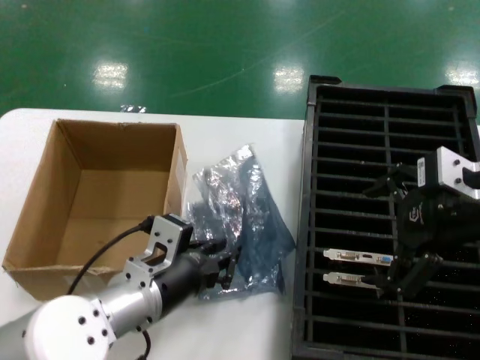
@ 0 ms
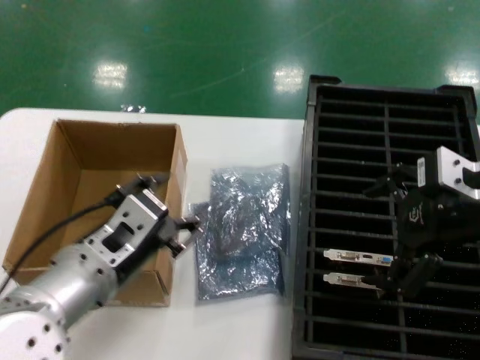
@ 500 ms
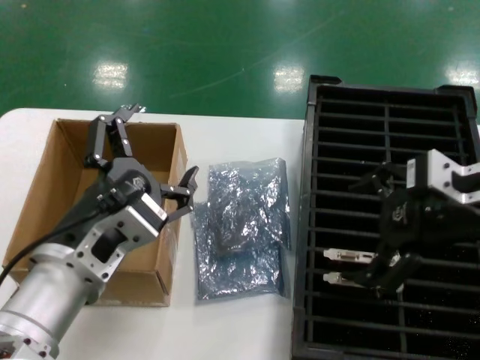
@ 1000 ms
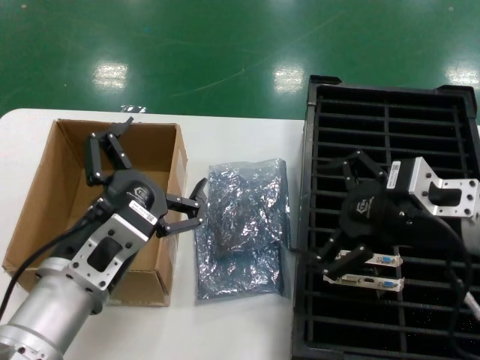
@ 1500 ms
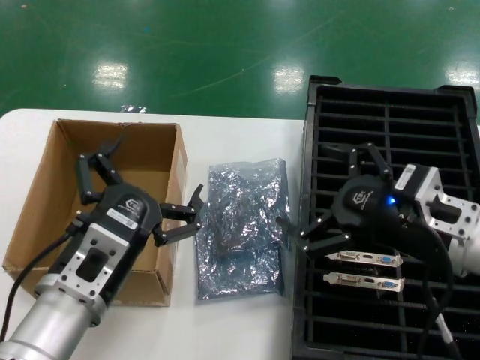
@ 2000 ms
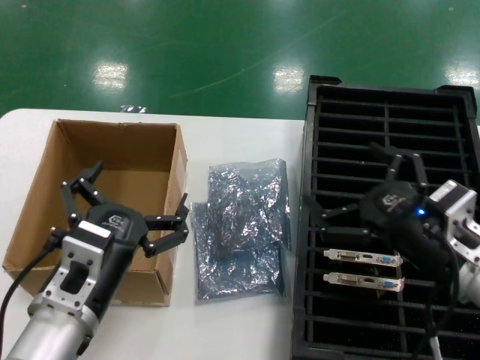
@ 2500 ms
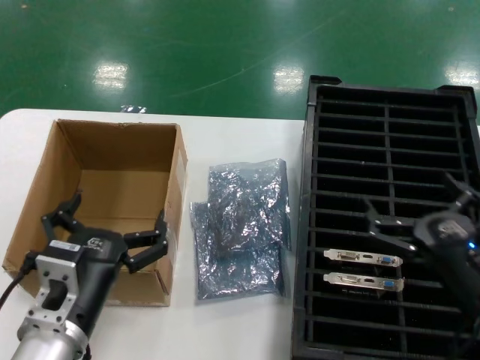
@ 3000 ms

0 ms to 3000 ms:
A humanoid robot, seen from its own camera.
Task of the whole recording: take out graphics card from box remove packaging put into black container.
0 ms to 1500 ms: The left hand shifts some 5 cm backward; the right hand goes about 5 cm downward.
1500 ms to 3000 ms: The left hand is displaced downward by some 10 cm; the right hand heads downward and backward, covering about 15 cm.

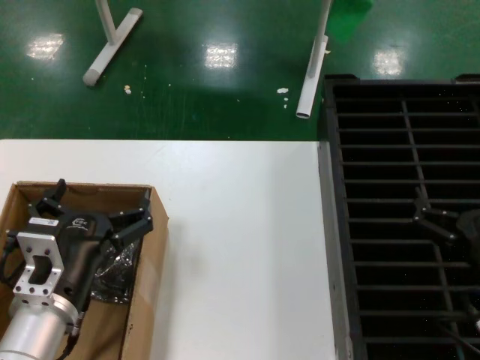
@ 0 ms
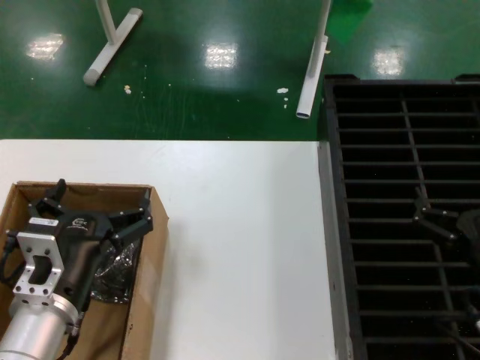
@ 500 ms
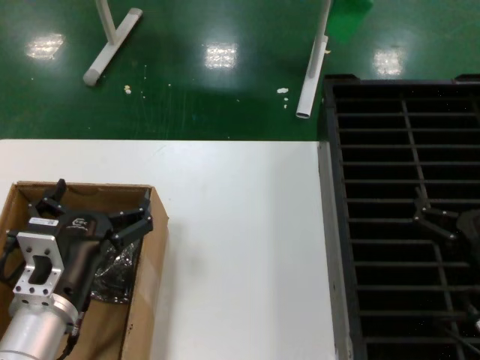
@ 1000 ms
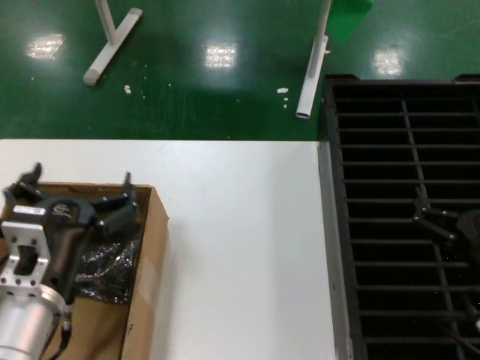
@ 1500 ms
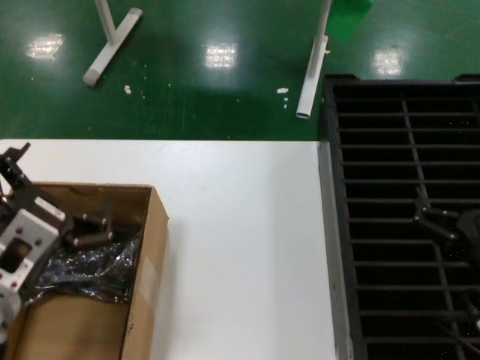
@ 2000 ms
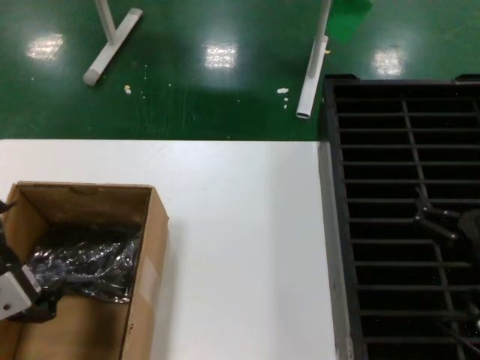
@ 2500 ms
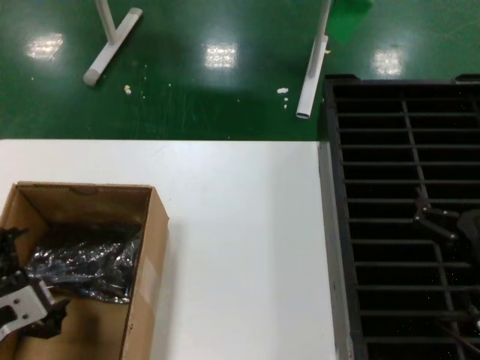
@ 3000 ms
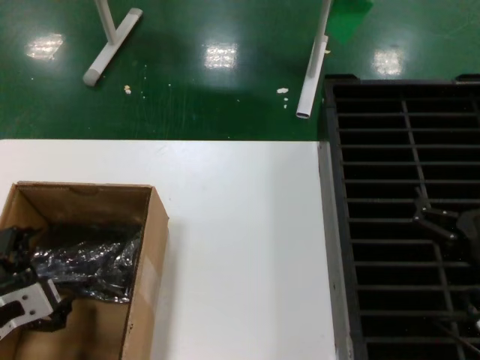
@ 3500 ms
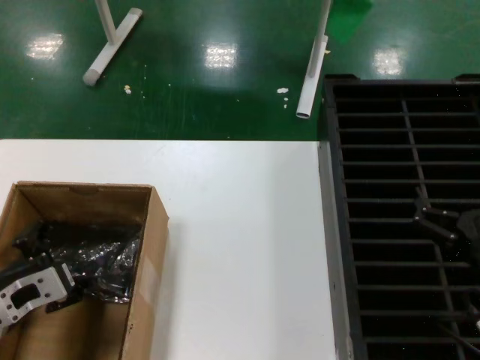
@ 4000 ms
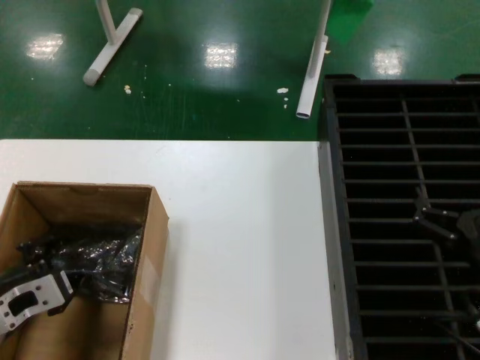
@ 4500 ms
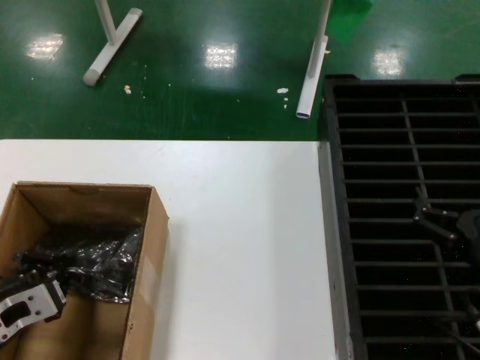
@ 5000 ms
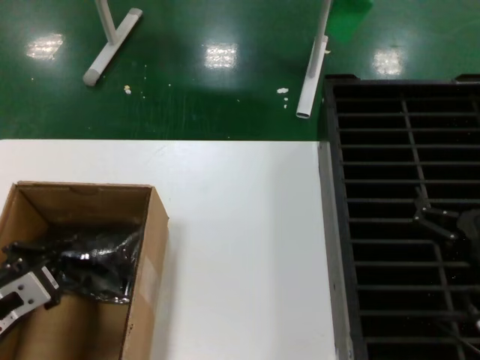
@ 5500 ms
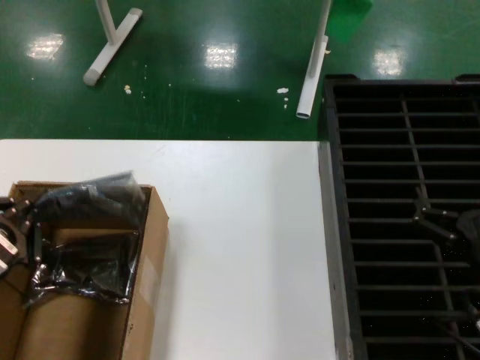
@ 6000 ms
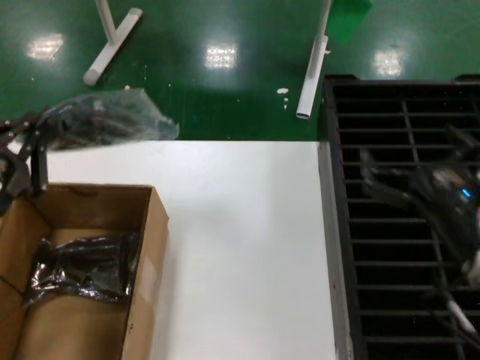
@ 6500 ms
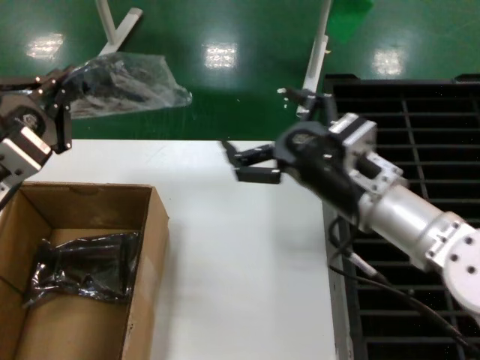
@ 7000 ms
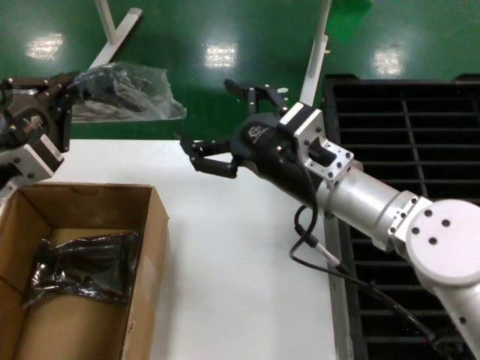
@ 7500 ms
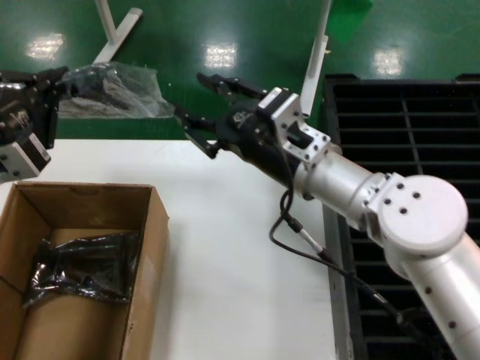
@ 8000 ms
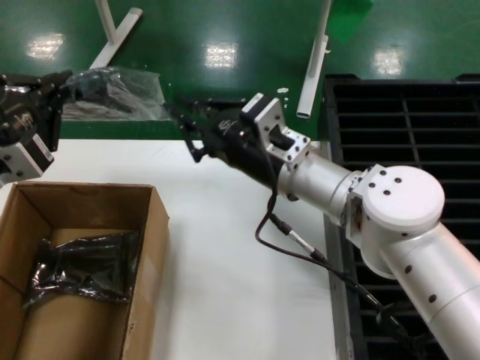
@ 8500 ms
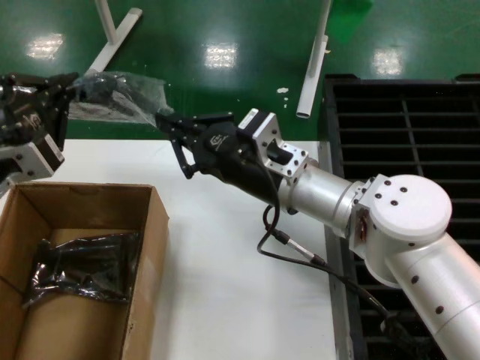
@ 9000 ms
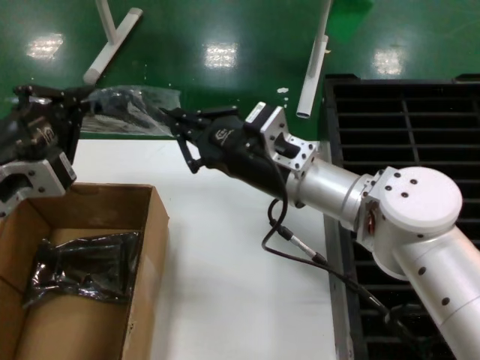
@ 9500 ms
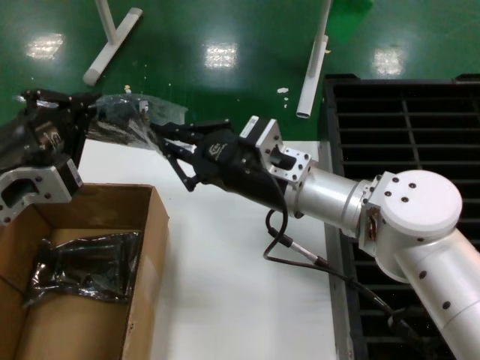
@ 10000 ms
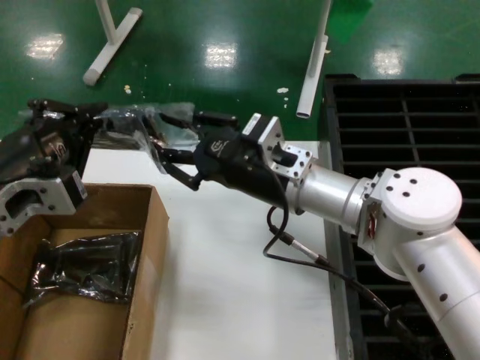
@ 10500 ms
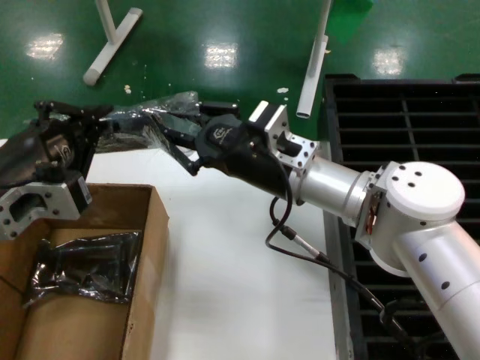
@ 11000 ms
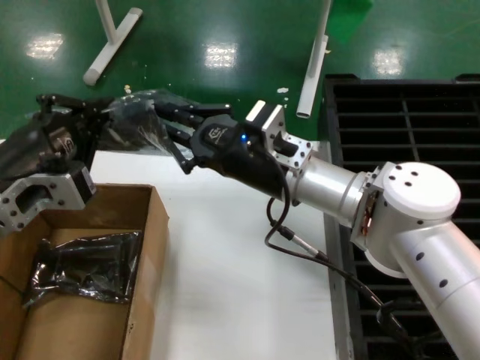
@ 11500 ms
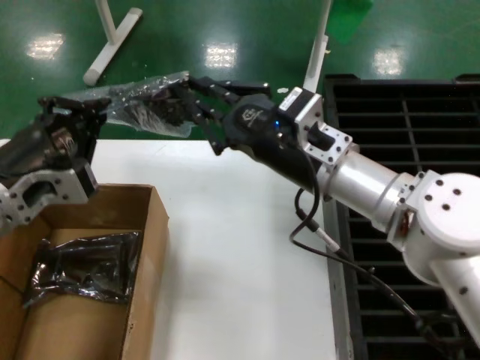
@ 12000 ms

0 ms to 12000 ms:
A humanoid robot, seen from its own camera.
Task of the whole recording: take out graphics card from box remove packaging put into black container.
Step, 0 ms to 5000 ms: Grasp the bag.
Step, 5500 ms to 7000 ms: Lift the bag.
0 ms to 2000 ms: The left hand travels upward by some 10 cm.
2000 ms to 4000 ms: The left hand heads downward, to the left and forward, covering approximately 10 cm.
4000 ms to 6000 ms: The left hand heads backward and upward, covering approximately 10 cm.
6000 ms to 8000 ms: The right hand shifts some 25 cm to the left, forward and upward. Meanwhile the left hand is displaced forward and upward by roughly 10 cm.

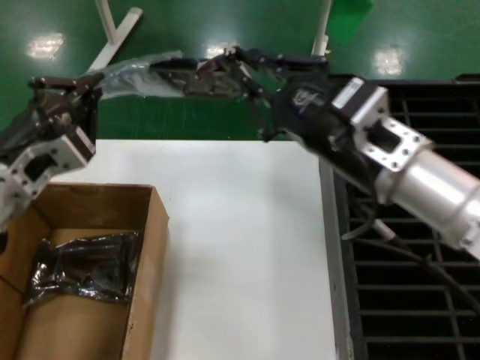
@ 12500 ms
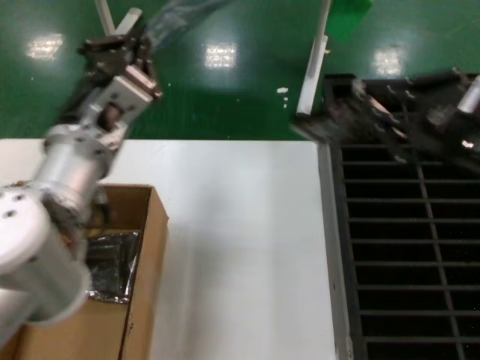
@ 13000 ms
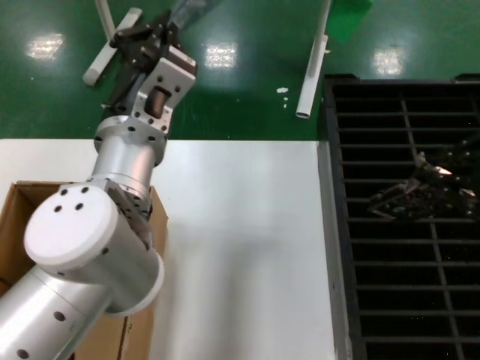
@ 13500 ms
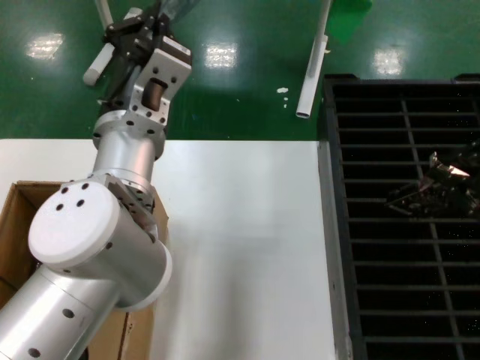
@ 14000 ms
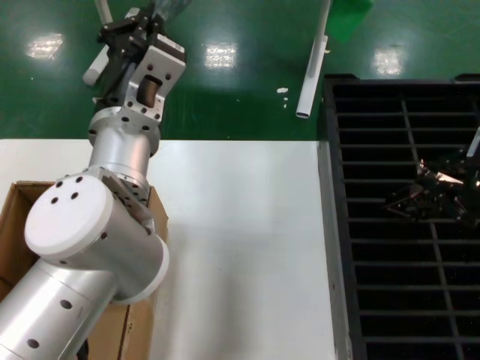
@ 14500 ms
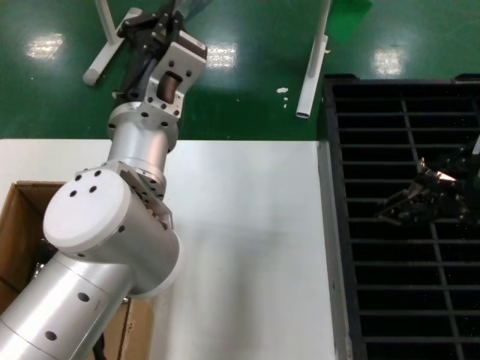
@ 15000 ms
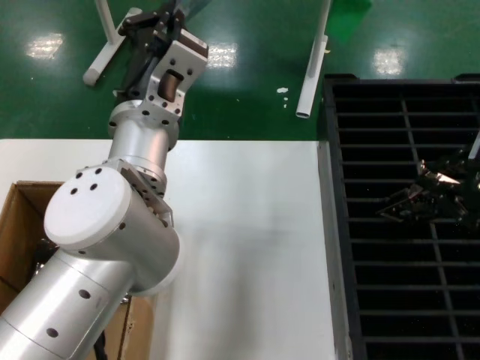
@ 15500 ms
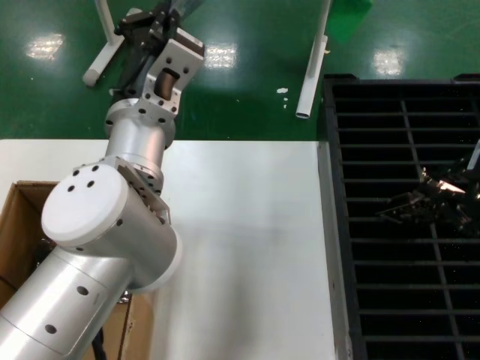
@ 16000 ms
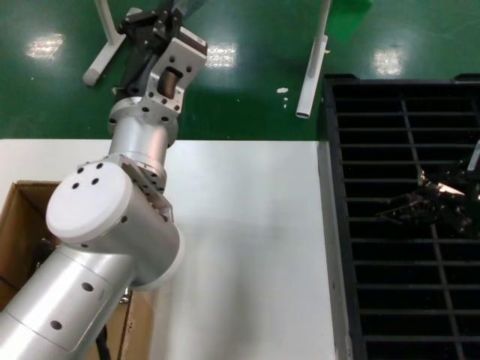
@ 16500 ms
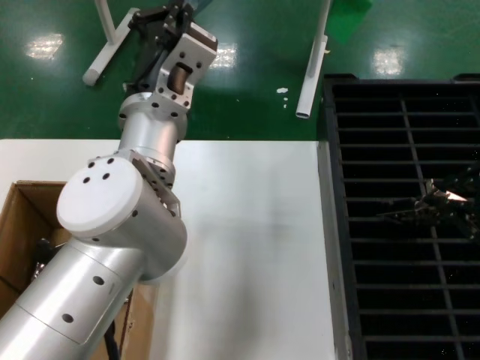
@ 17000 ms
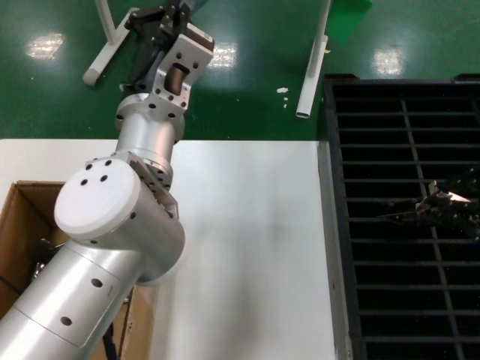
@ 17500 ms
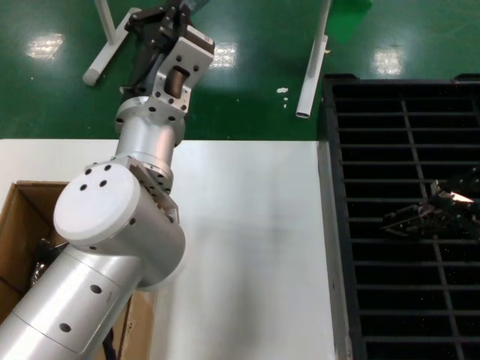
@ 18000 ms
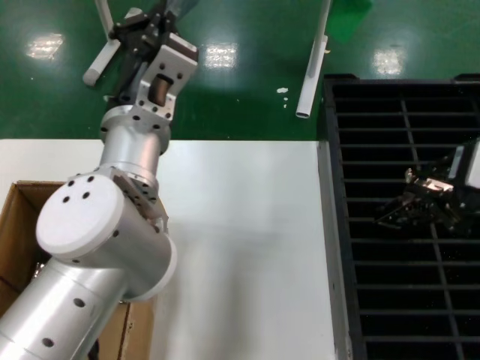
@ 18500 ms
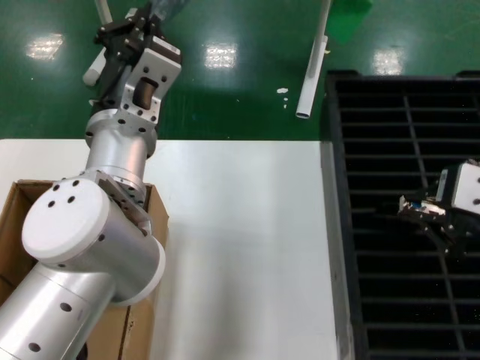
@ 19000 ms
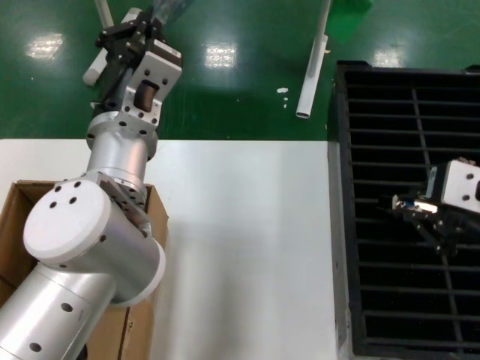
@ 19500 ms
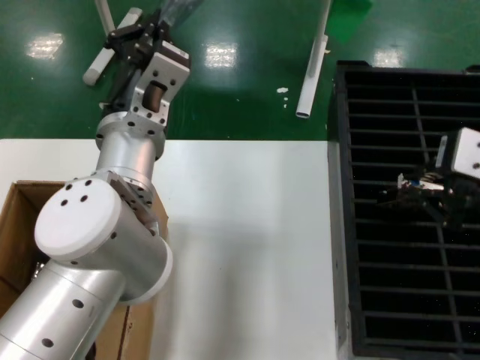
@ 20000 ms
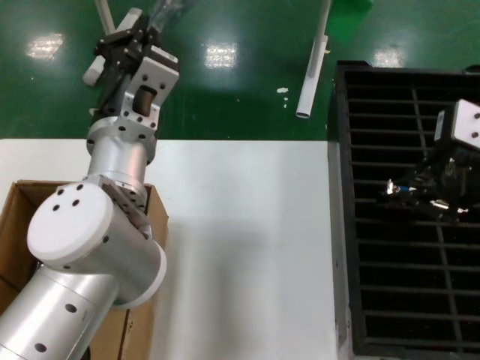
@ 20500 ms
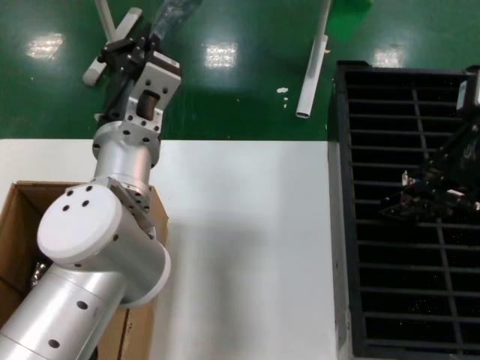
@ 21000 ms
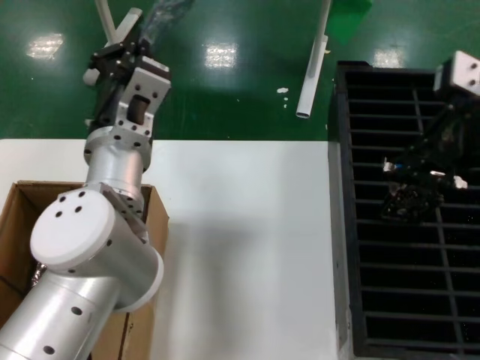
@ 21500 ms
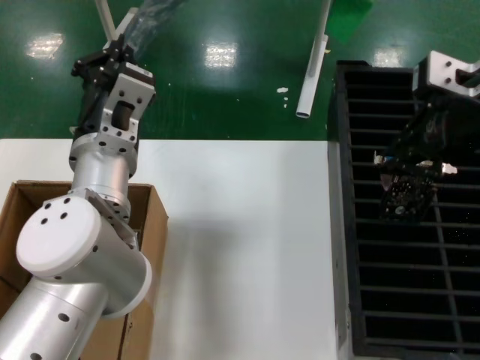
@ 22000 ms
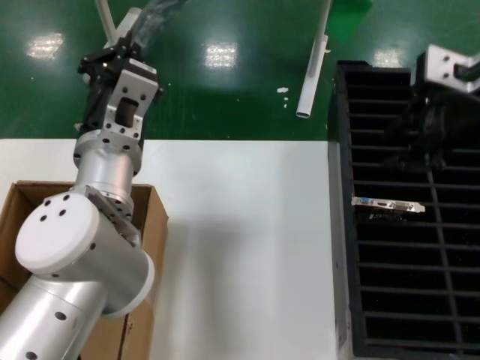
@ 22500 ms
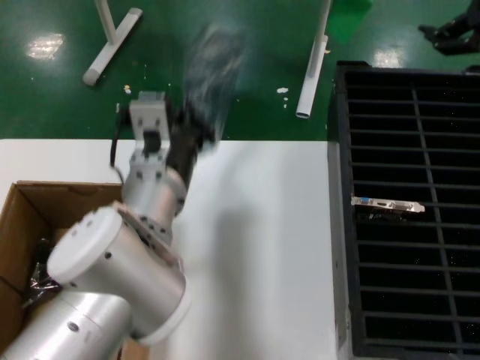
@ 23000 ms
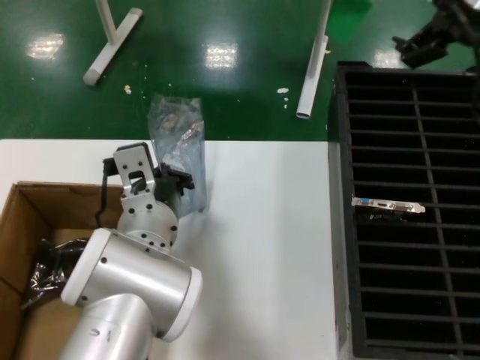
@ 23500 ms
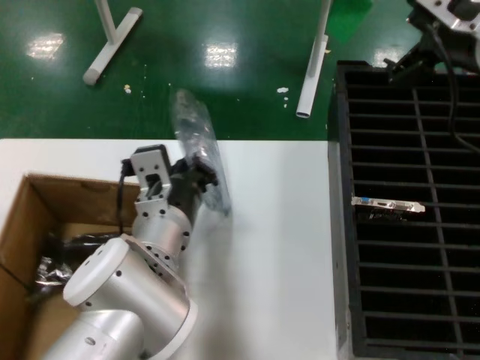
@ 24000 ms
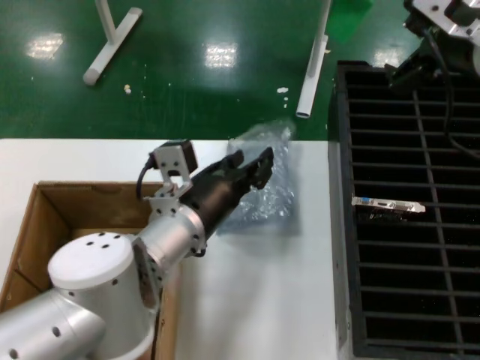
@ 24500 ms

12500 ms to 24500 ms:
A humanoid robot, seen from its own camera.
Task of the whole recording: take out graphics card from box remove packaging put into black container.
Step, 13000 ms to 22500 ms: Place the hard disk in the hard disk enclosure.
12500 ms to 14500 ms: The left hand goes about 15 cm to the right; the right hand is displaced to the right, upward and backward by roughly 15 cm.
14500 ms to 18500 ms: The hands make only small movements.
18500 ms to 20500 ms: The right hand is displaced forward by about 5 cm.
20500 ms to 22500 ms: The right hand heads forward, covering about 10 cm.
22500 ms to 24500 ms: The left hand is displaced downward by about 5 cm. The right hand ends up some 5 cm from where it was.
